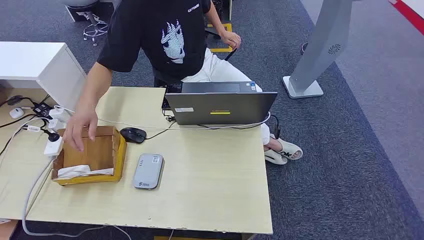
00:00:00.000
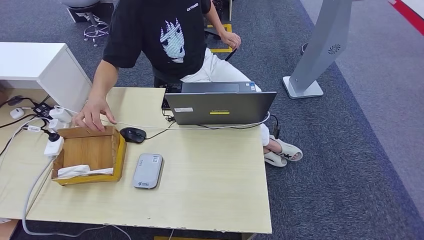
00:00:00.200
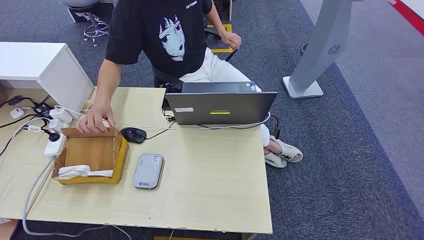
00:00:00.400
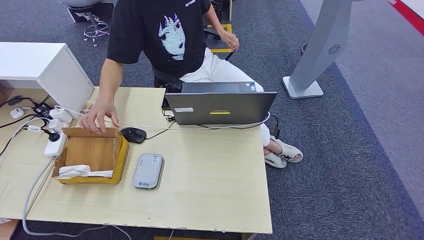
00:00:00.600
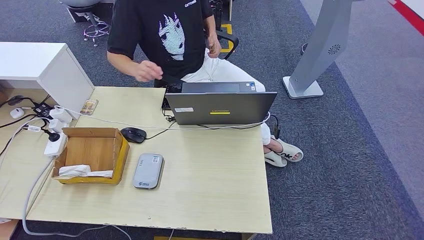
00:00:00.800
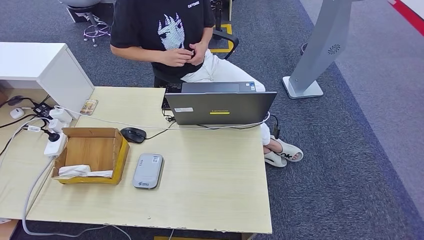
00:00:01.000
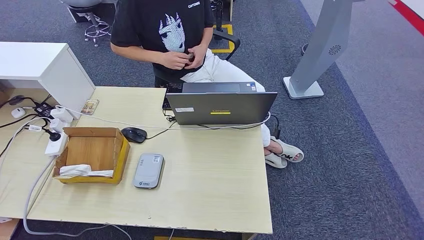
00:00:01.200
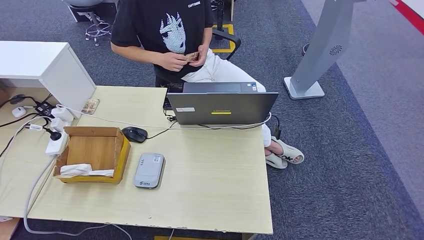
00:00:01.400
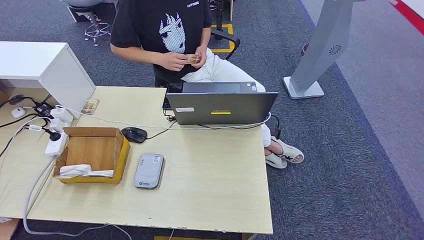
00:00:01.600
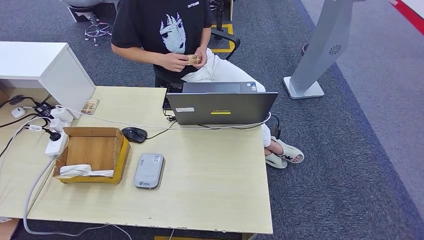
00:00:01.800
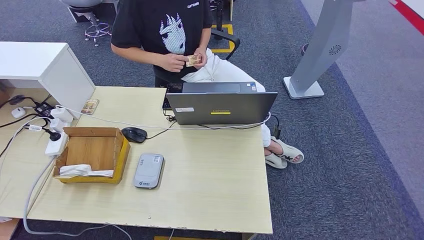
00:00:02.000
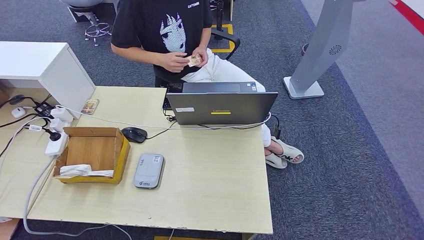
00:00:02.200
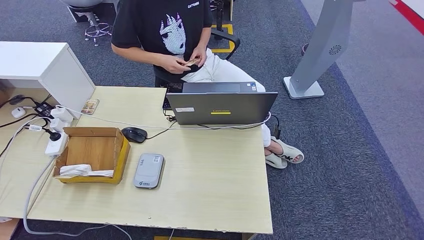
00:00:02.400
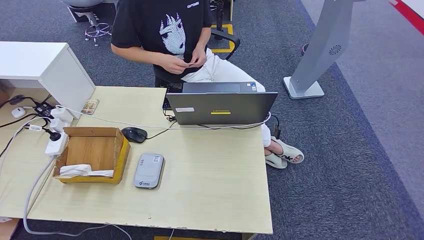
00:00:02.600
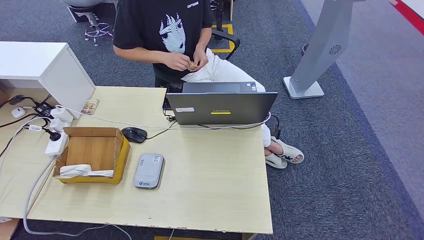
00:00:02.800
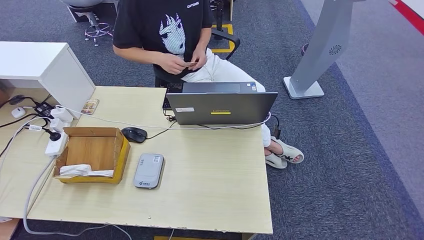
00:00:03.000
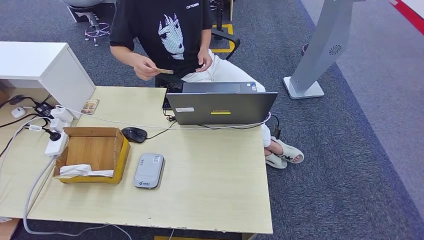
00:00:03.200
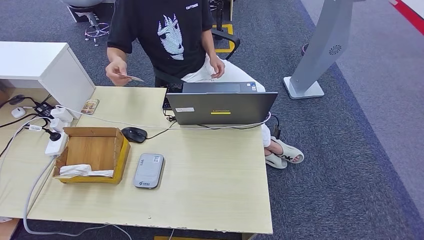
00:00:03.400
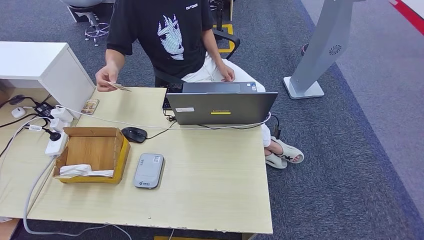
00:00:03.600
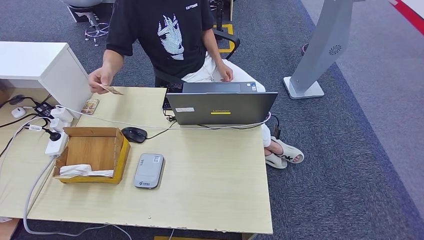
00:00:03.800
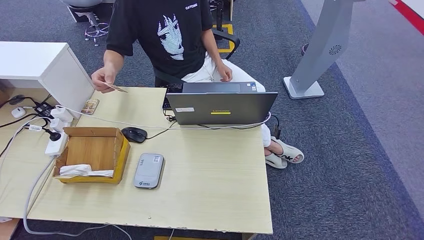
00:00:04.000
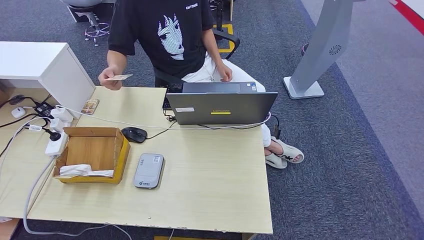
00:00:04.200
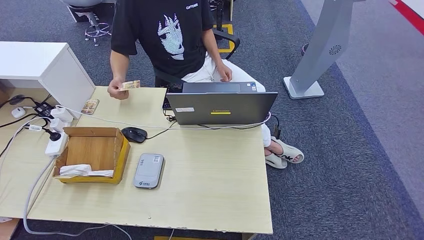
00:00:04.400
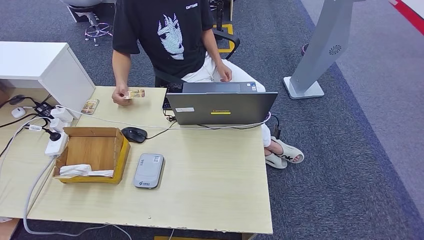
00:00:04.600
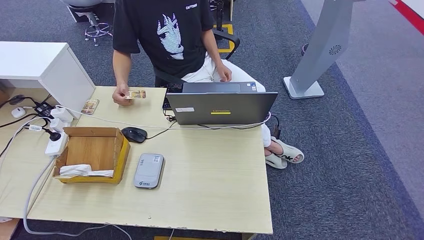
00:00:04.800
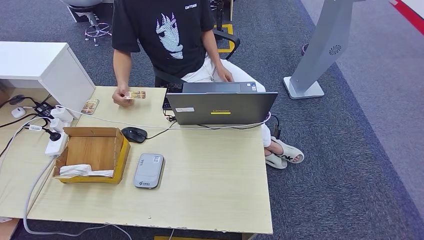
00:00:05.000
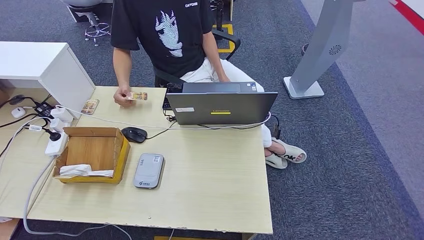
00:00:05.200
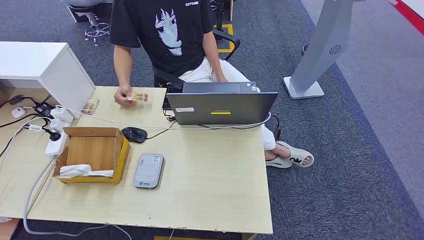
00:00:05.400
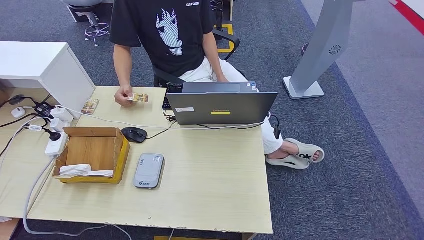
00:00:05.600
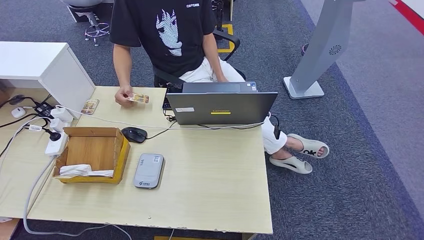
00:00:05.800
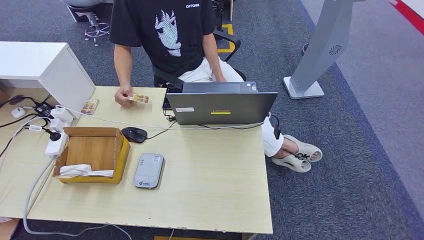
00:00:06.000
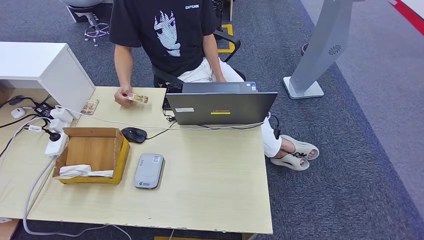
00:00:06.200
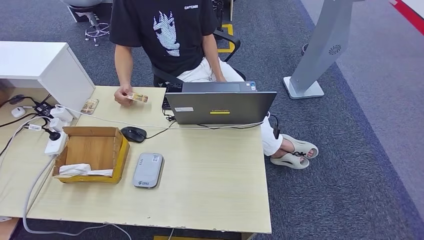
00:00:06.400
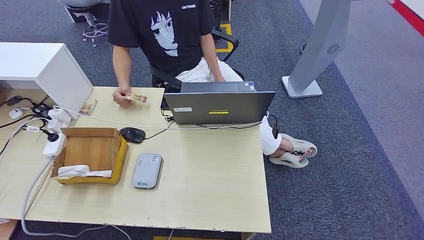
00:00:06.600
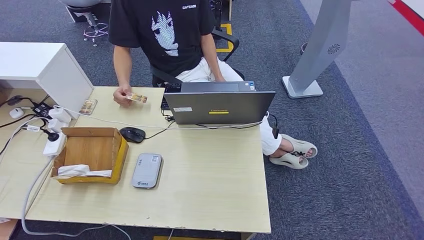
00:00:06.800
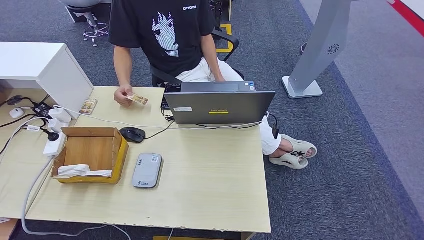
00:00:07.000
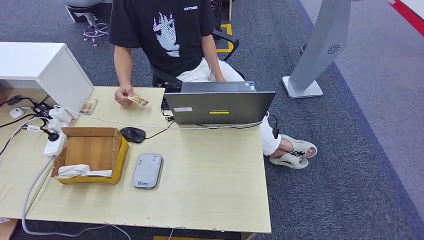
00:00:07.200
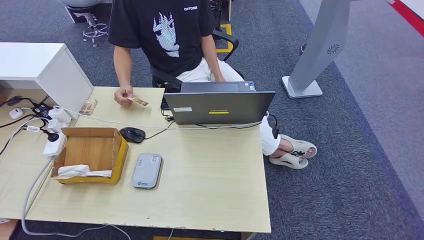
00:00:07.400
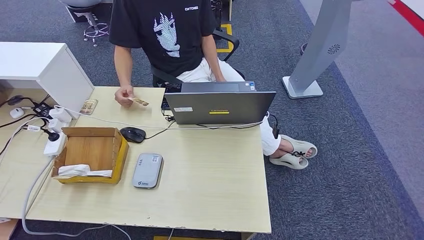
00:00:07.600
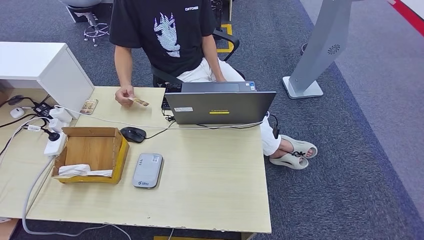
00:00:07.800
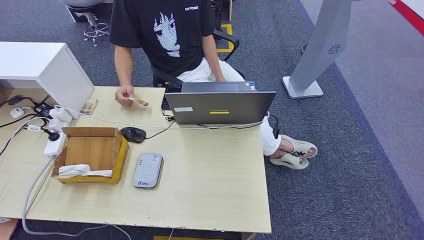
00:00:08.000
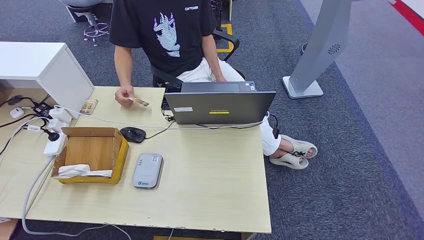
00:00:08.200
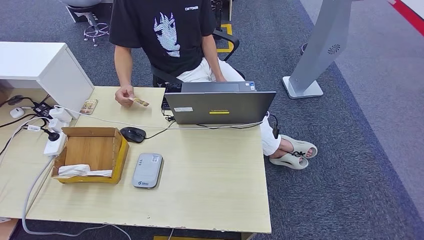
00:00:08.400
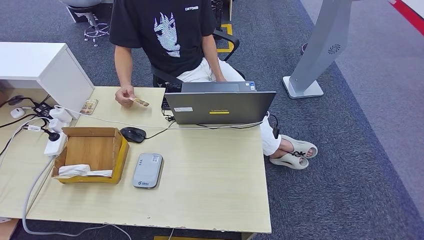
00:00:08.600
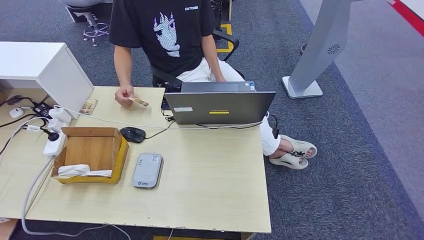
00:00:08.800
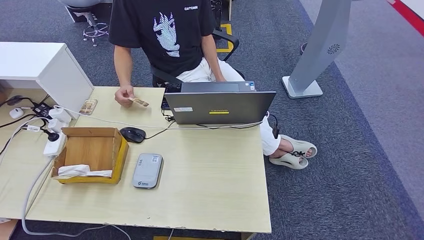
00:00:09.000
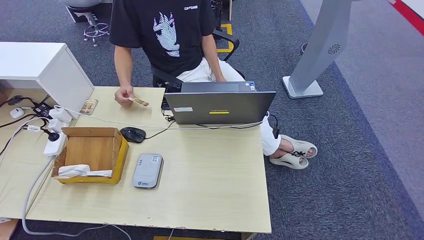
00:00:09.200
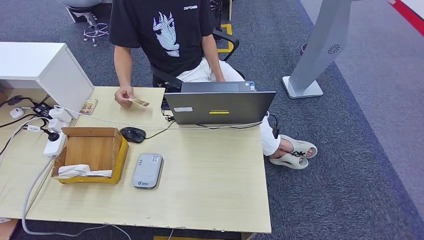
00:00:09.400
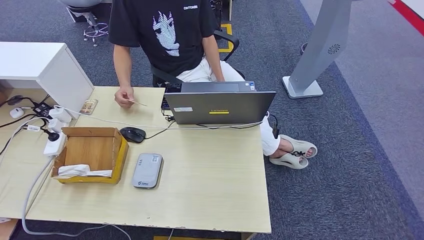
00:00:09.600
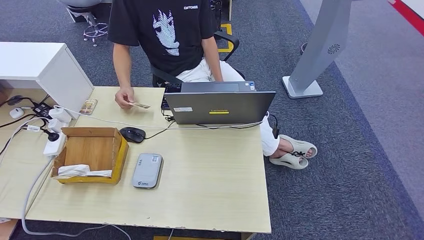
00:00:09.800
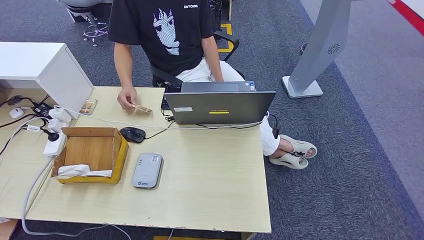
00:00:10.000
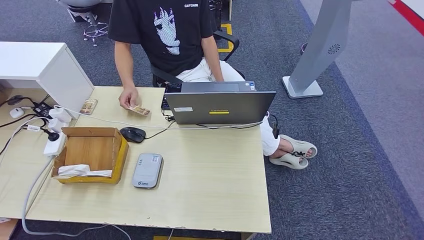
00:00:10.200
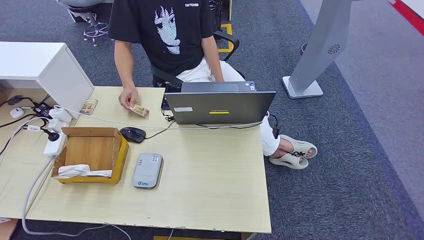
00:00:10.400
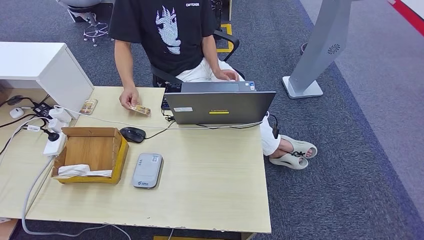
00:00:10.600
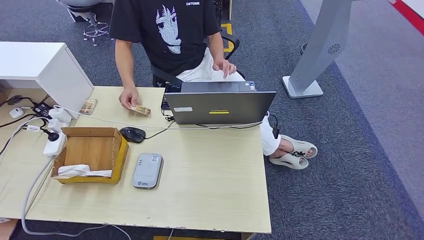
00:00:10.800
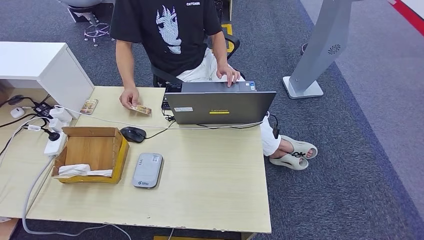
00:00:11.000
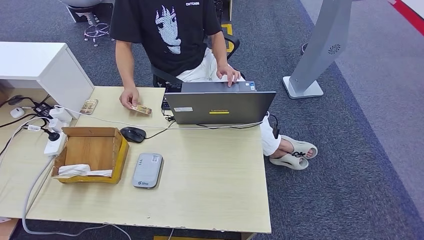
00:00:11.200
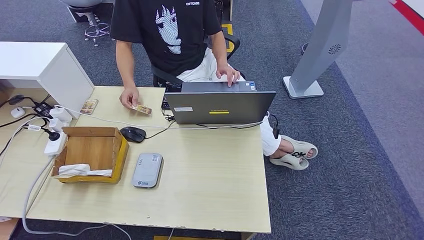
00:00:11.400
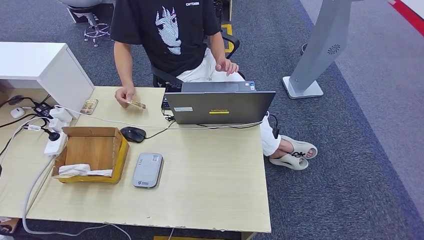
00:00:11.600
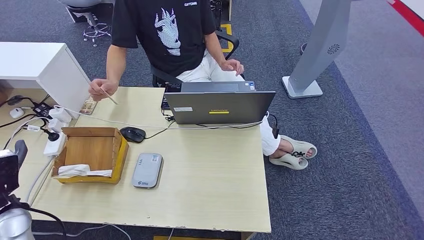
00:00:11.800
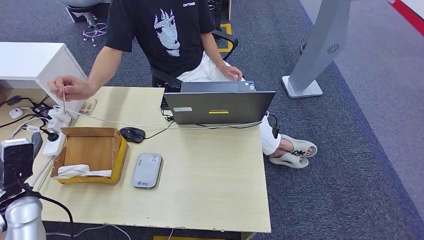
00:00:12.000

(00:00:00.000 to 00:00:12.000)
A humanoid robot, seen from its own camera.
00:00:03.000 - 00:00:06.000: The two hands keep their place.
00:00:06.000 - 00:00:07.600: The left hand heads upward, to the left and forward, covering some 15 cm.
00:00:09.000 - 00:00:10.400: The hands make only small movements.
00:00:10.400 - 00:00:12.000: The left hand travels forward and upward by about 30 cm.

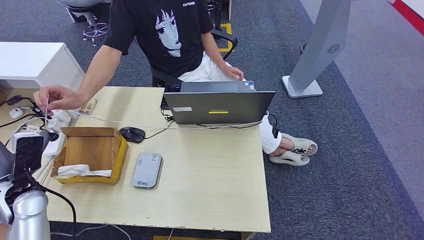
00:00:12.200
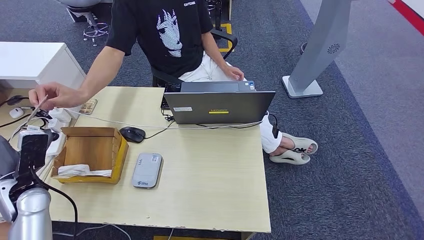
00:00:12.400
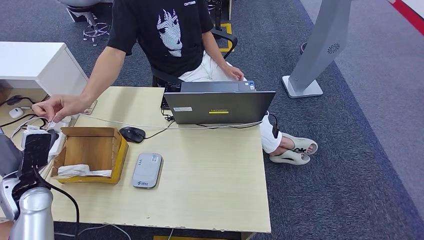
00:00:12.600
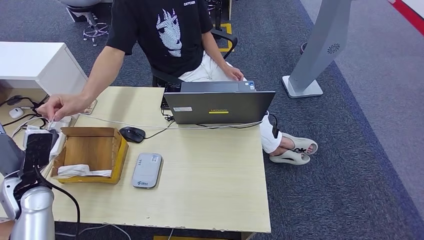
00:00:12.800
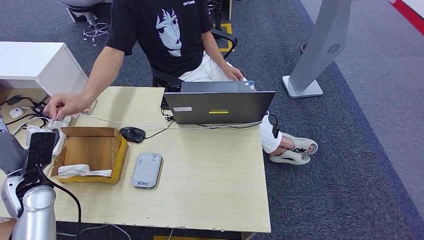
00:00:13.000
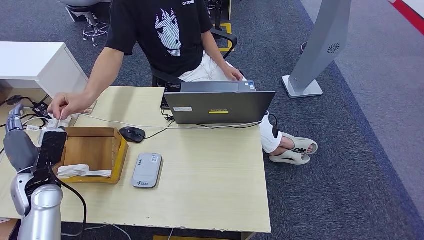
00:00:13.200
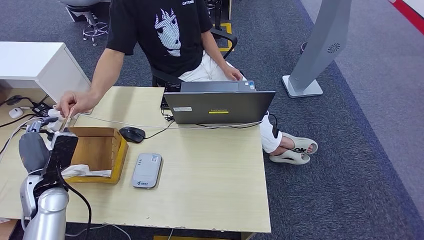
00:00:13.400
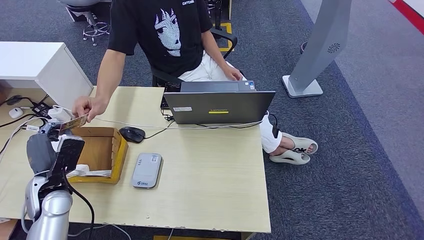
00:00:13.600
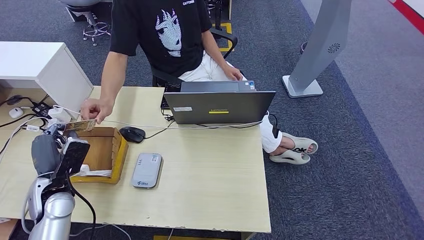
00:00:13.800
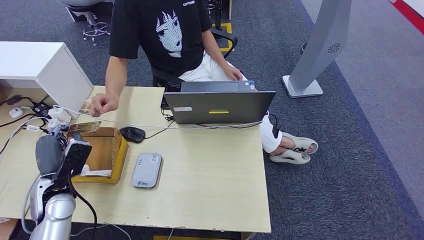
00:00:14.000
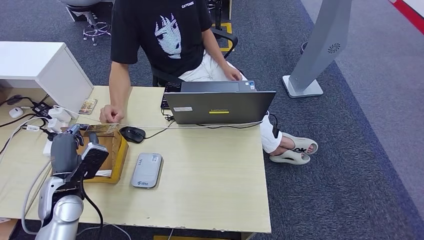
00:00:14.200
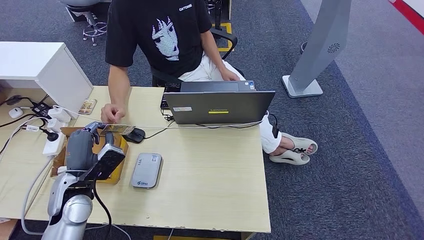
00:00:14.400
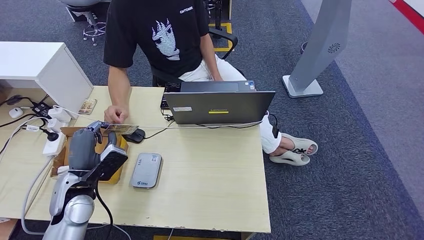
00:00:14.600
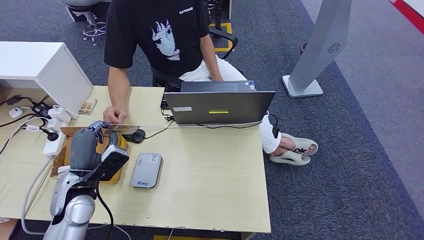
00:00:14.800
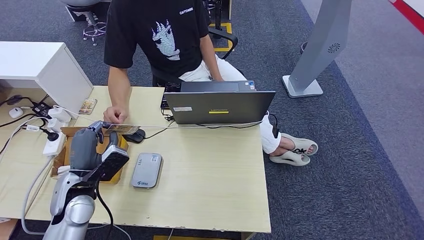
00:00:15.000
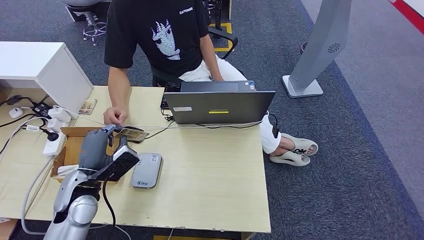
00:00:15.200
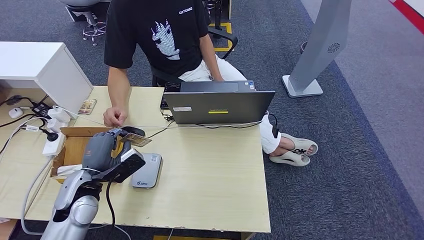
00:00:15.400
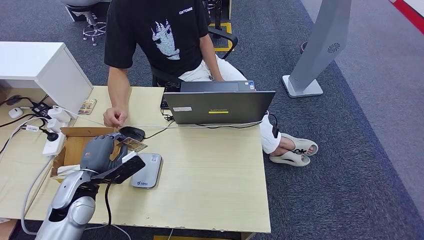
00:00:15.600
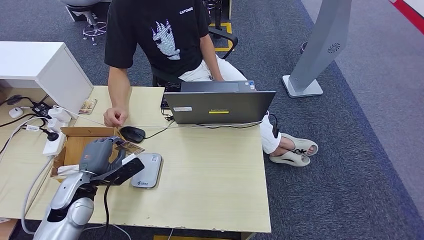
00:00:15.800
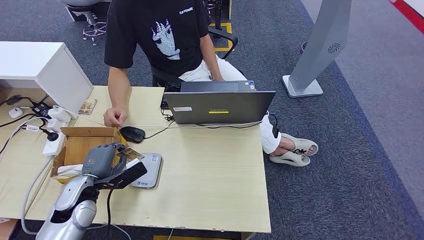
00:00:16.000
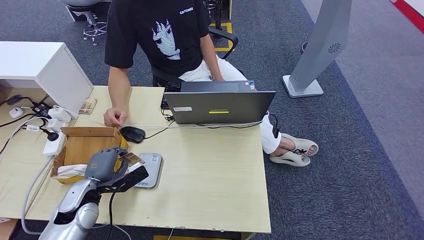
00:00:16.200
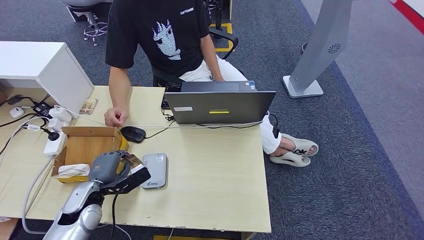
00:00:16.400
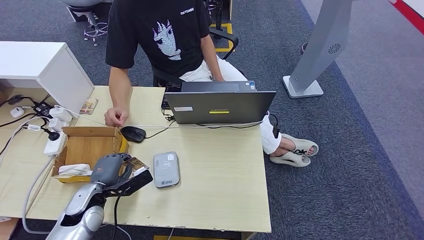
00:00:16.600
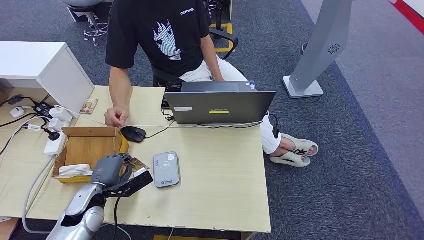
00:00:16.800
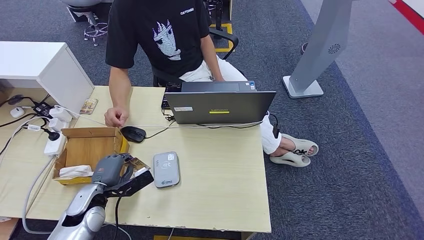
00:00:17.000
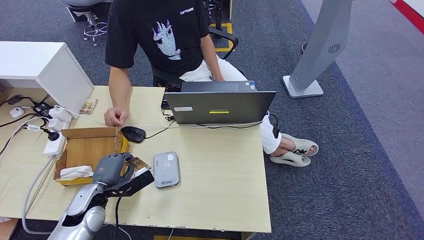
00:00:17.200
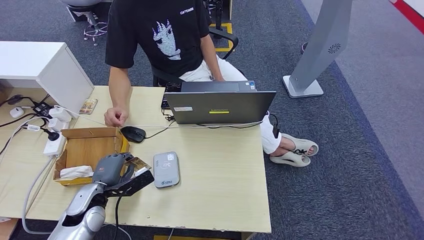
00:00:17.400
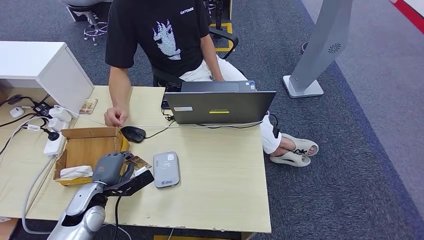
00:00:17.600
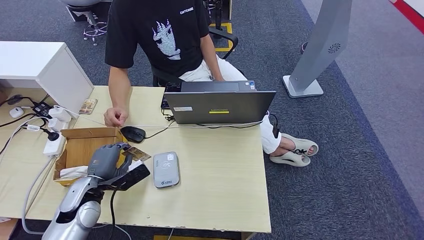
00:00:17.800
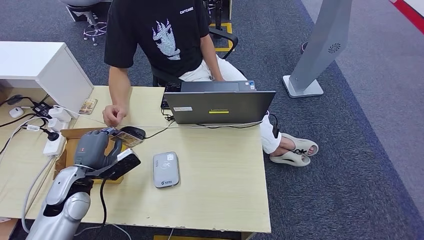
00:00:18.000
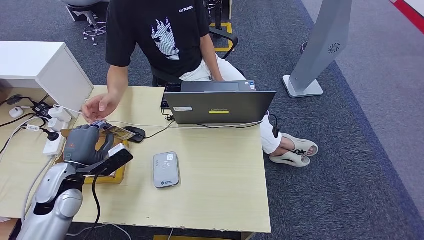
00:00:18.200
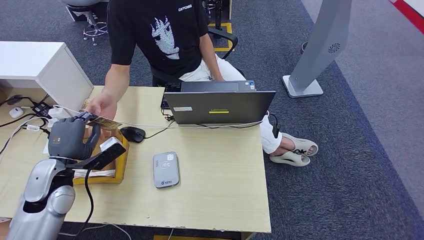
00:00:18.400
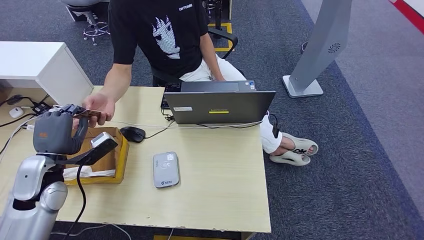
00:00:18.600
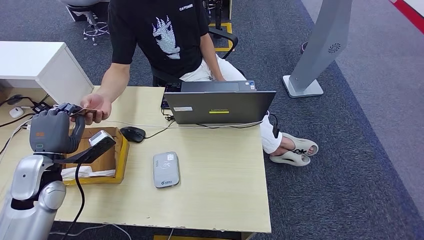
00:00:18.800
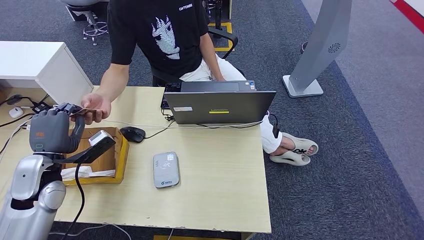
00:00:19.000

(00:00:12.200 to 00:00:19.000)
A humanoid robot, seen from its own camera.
Step, 00:00:13.800 - 00:00:17.800: Place the ID card on the card reader.
00:00:12.200 - 00:00:13.600: The left hand changes place by about 5 cm.
00:00:13.600 - 00:00:15.000: The left hand goes approximately 5 cm to the right.
00:00:15.000 - 00:00:16.200: The left hand goes about 5 cm downward.
00:00:16.200 - 00:00:17.600: The hands make only small movements.
00:00:17.600 - 00:00:19.000: The left hand moves upward and to the left, some 15 cm.
